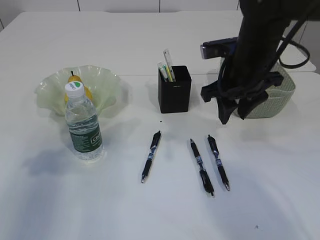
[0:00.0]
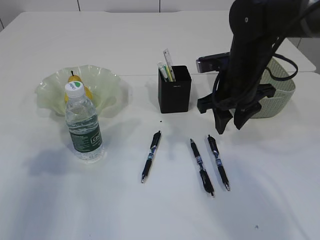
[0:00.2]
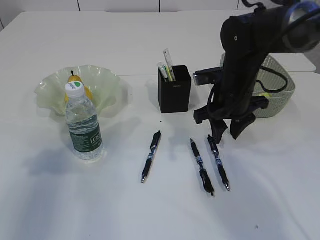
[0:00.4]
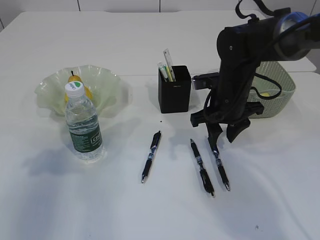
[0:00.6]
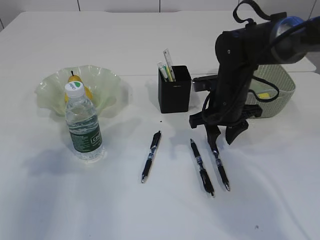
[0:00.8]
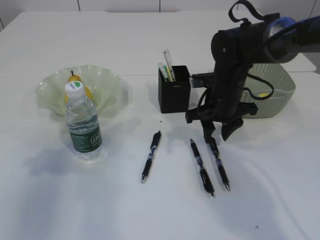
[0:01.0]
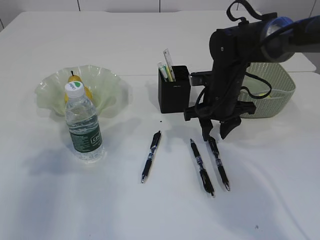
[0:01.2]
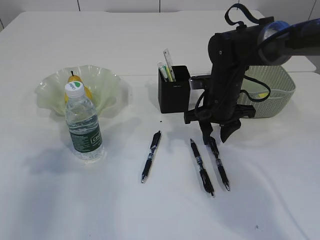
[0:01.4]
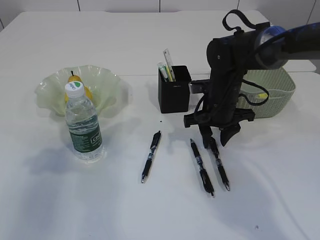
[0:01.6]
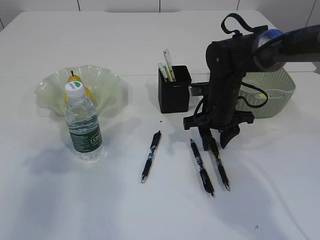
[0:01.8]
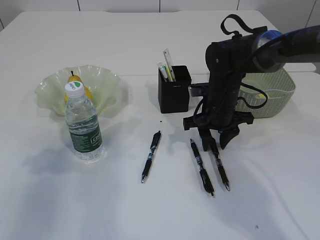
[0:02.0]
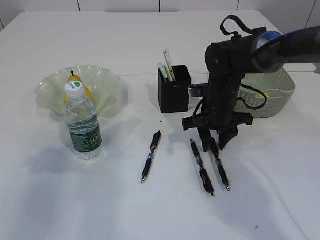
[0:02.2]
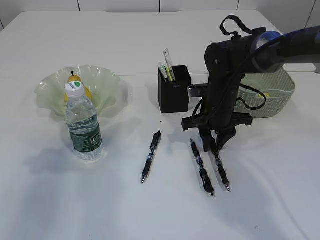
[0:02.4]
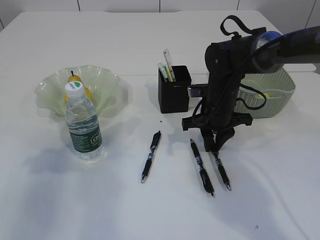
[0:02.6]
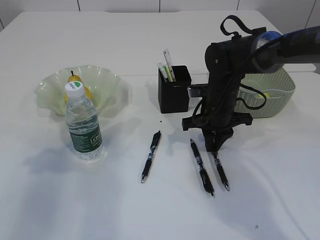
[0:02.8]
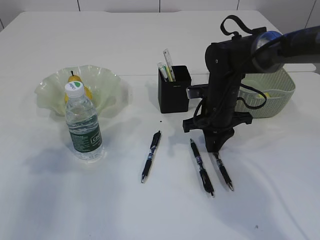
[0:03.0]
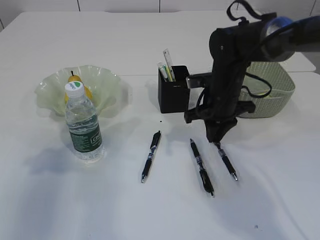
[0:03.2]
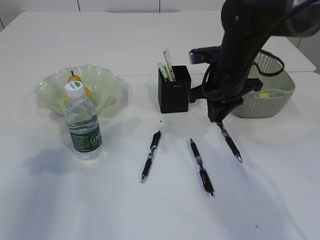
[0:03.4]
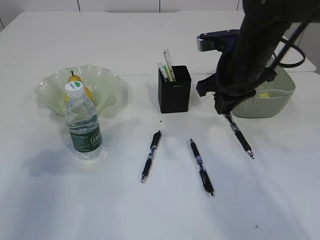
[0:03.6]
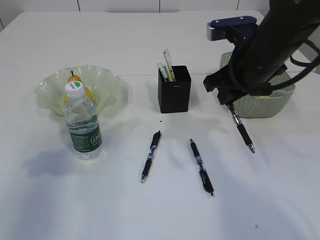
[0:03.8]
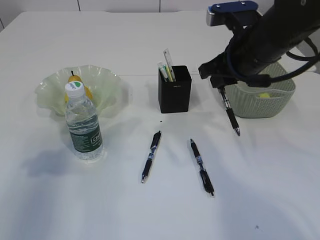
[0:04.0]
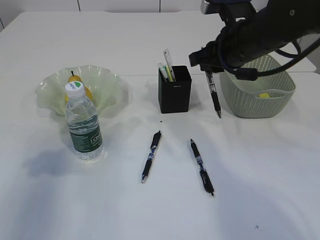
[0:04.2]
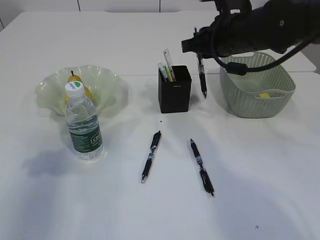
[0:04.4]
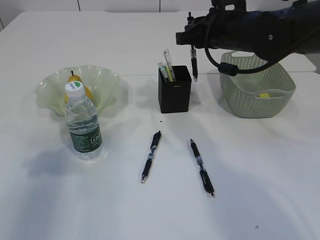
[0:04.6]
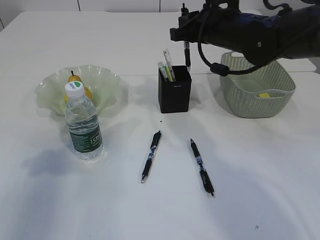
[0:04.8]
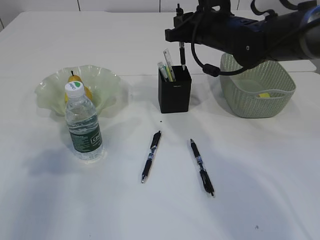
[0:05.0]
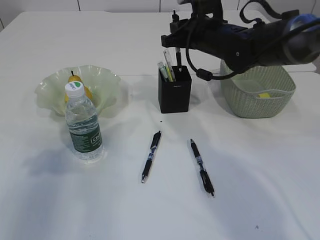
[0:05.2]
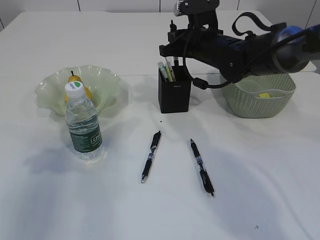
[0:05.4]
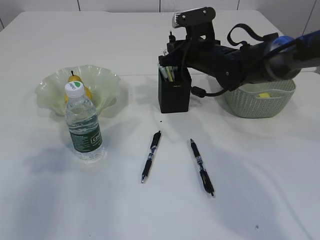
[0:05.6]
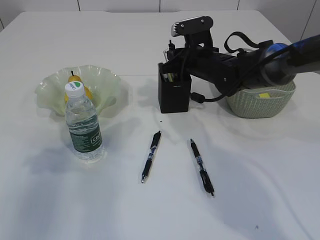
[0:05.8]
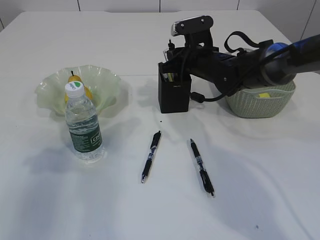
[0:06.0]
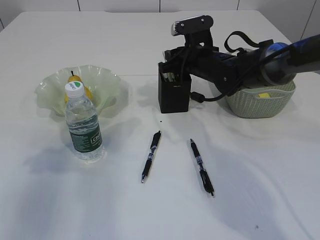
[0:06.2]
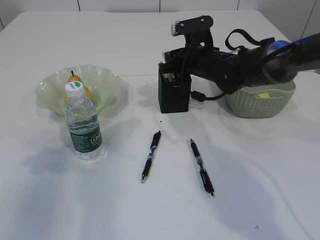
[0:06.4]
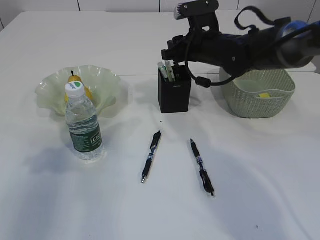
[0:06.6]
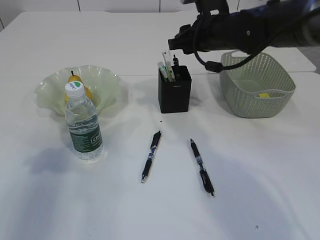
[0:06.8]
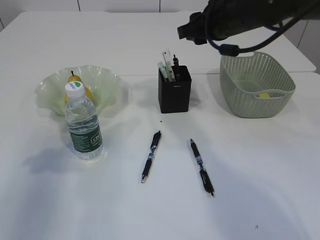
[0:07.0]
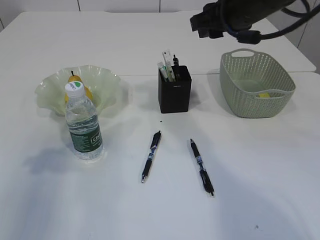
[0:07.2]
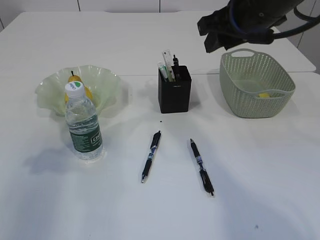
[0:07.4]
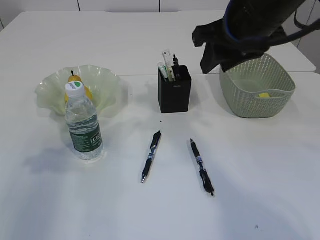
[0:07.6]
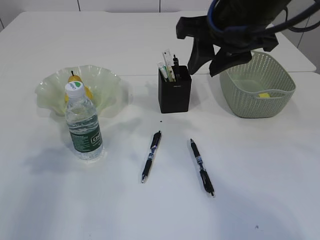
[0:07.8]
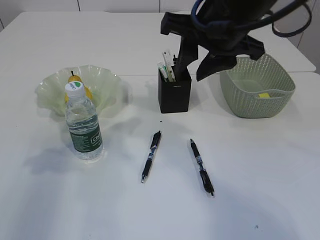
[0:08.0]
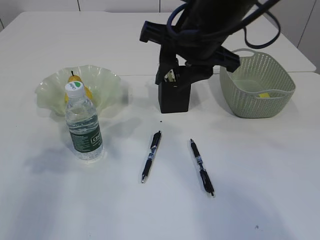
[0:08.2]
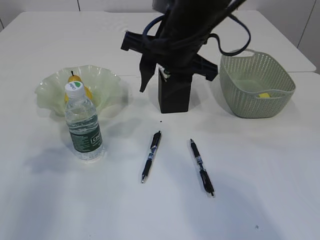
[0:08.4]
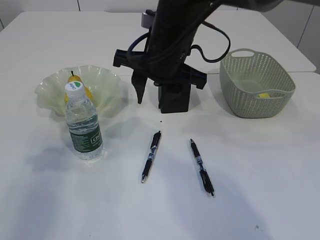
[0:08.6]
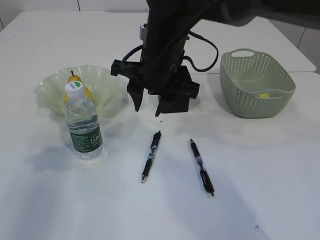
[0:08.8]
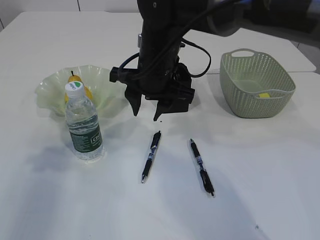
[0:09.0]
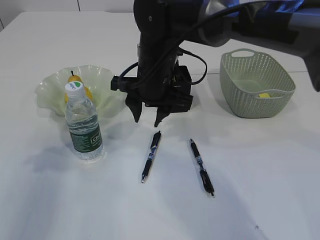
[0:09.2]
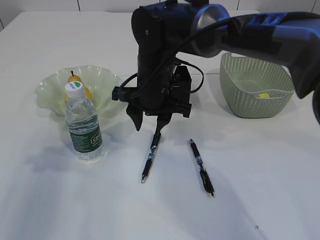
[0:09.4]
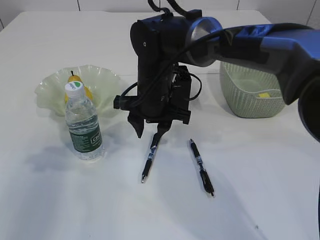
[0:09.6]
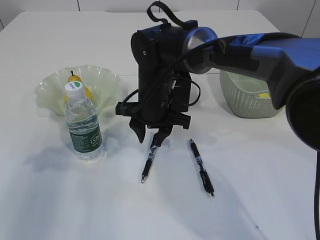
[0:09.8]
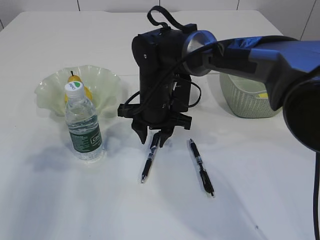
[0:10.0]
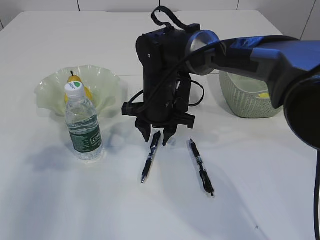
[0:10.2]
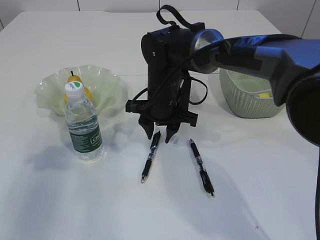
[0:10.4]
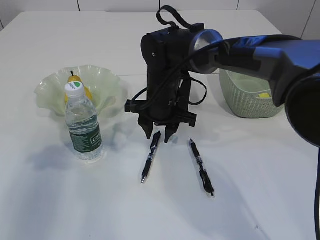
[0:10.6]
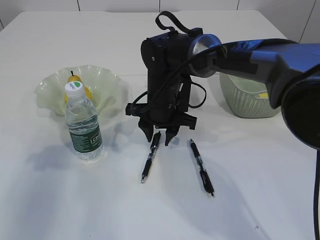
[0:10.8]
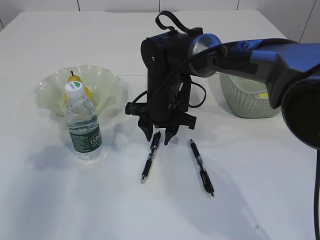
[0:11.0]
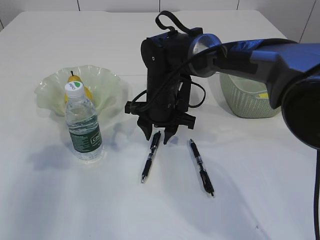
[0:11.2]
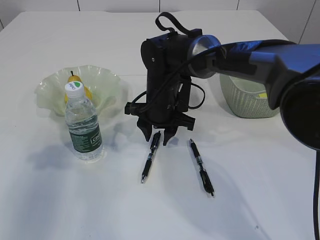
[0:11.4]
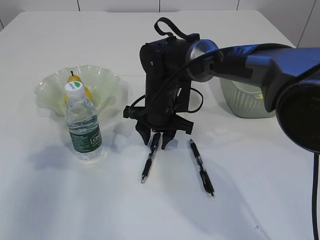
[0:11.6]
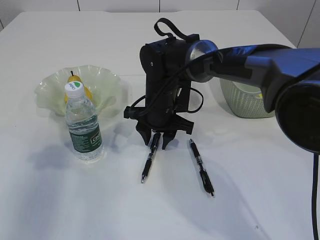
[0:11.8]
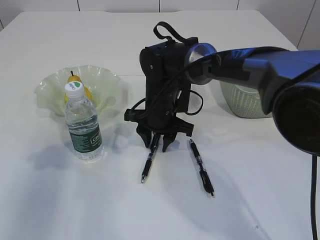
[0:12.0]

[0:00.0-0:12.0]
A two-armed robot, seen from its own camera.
Step, 0:00.0 to 0:03.2: Pick up the pen with right arm.
Step, 0:03.4 to 0:06.6: Place the pen into the pen holder.
0:00.0 to 0:01.6: The right gripper shifts some 10 cm downward.
0:01.6 to 0:03.0: The right gripper closes up.
0:03.0 to 0:04.4: The right gripper moves upward, roughly 15 cm.
0:04.4 to 0:06.0: The right gripper travels downward and forward by about 10 cm.
0:06.0 to 0:07.6: The right gripper shifts roughly 20 cm upward and backward.
0:07.6 to 0:09.0: The right gripper moves to the left and downward, roughly 15 cm.
0:09.0 to 0:10.4: The right gripper goes about 10 cm downward.
0:10.4 to 0:12.0: The grippers stay close to where they were, moving slightly.

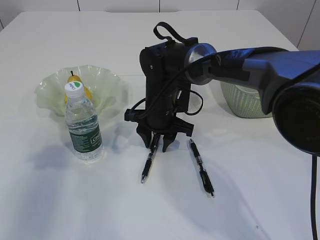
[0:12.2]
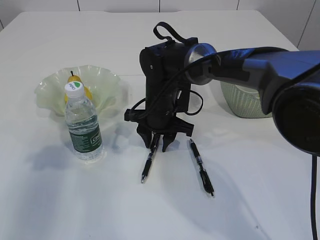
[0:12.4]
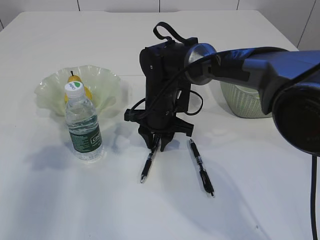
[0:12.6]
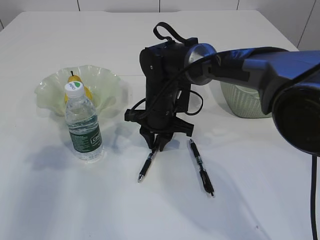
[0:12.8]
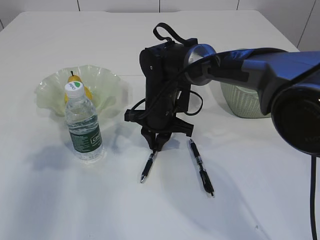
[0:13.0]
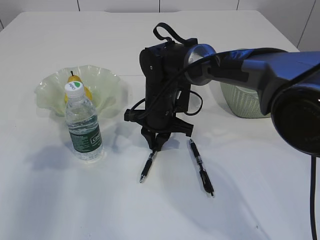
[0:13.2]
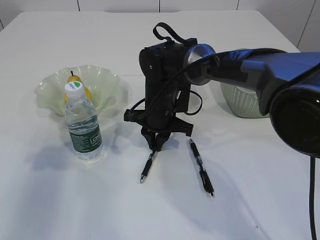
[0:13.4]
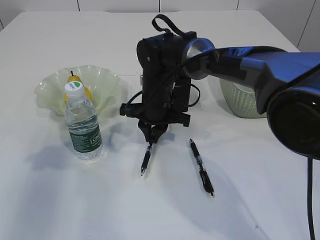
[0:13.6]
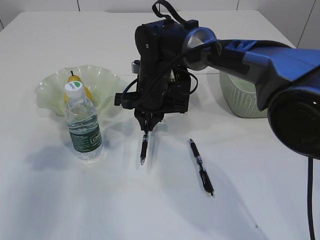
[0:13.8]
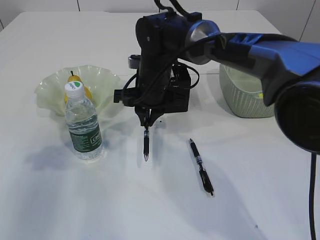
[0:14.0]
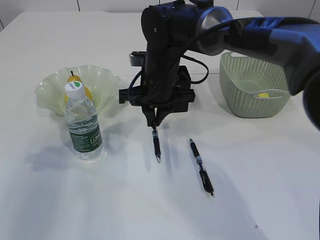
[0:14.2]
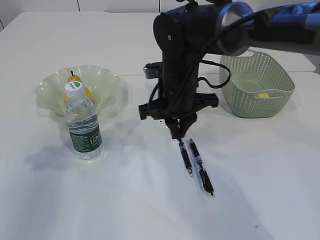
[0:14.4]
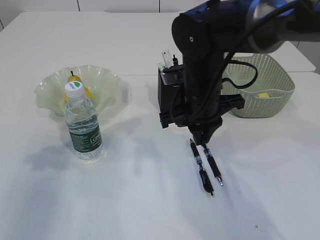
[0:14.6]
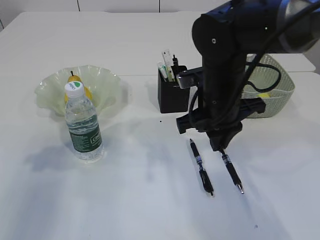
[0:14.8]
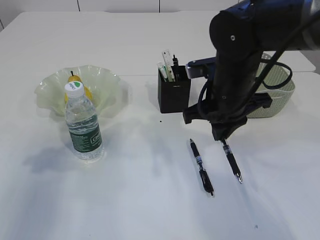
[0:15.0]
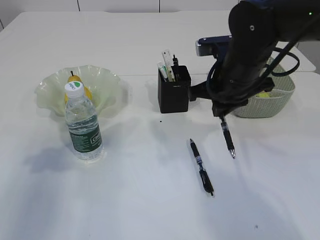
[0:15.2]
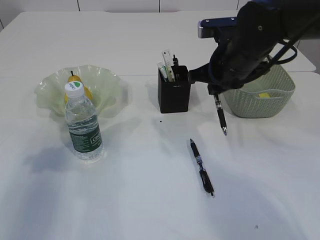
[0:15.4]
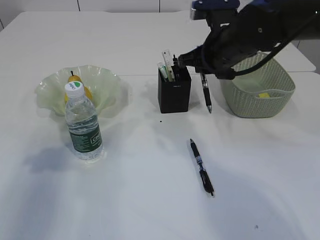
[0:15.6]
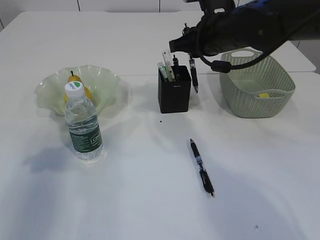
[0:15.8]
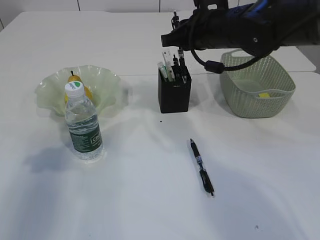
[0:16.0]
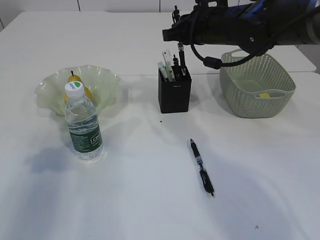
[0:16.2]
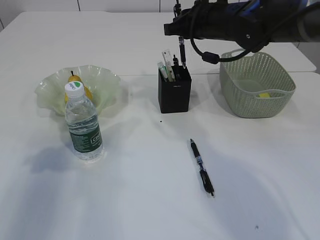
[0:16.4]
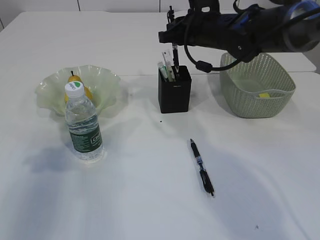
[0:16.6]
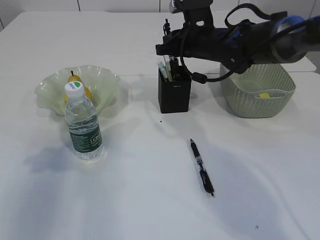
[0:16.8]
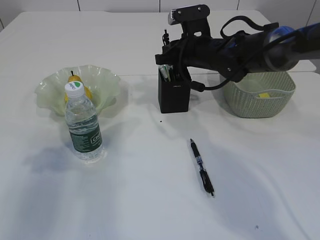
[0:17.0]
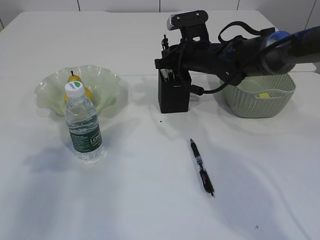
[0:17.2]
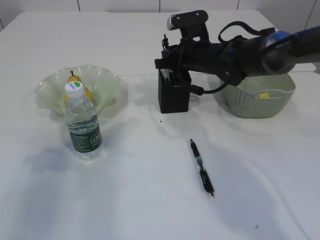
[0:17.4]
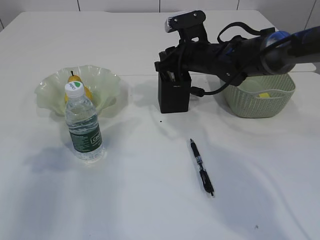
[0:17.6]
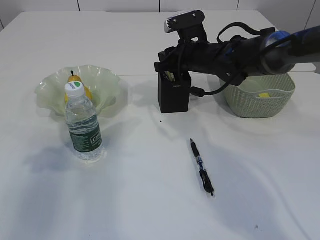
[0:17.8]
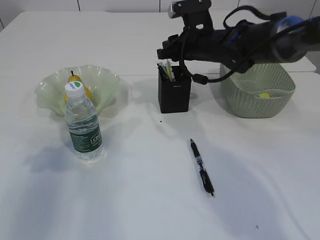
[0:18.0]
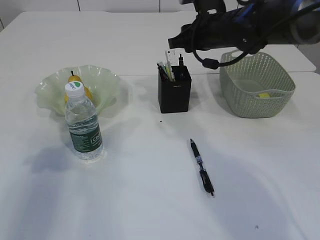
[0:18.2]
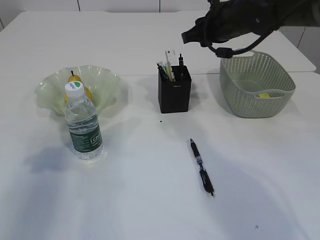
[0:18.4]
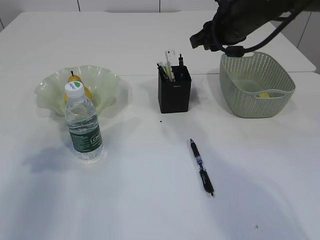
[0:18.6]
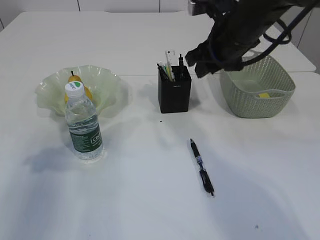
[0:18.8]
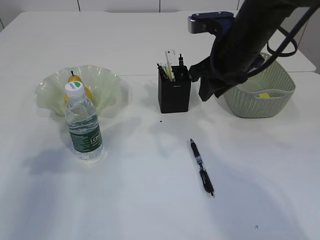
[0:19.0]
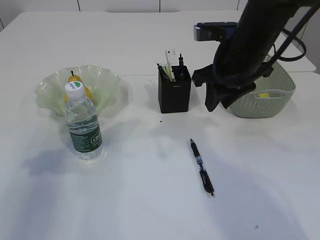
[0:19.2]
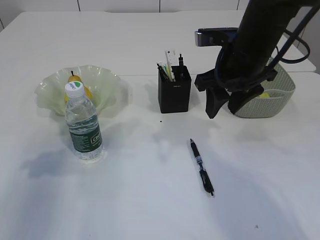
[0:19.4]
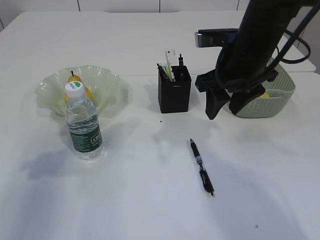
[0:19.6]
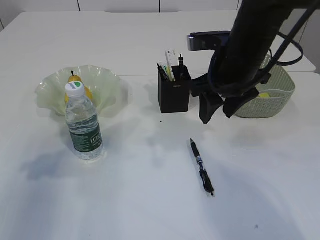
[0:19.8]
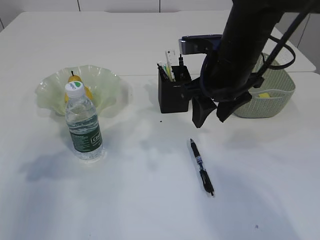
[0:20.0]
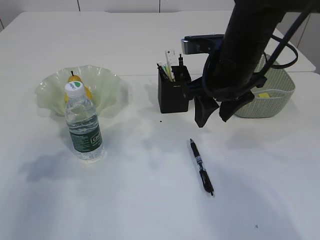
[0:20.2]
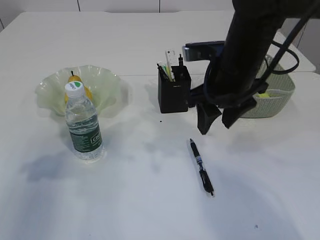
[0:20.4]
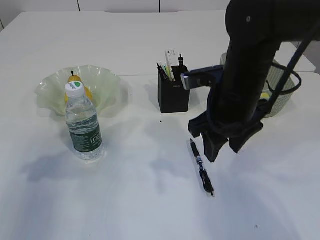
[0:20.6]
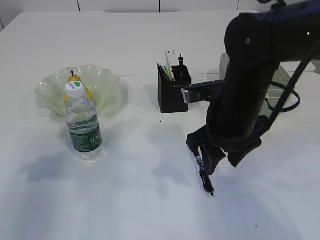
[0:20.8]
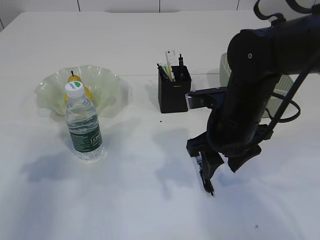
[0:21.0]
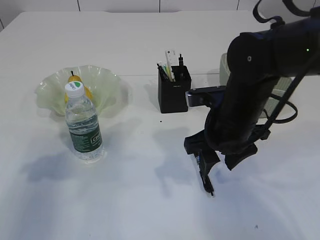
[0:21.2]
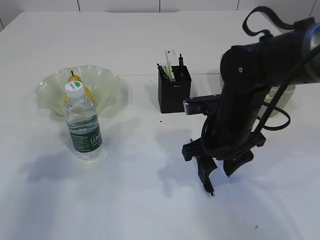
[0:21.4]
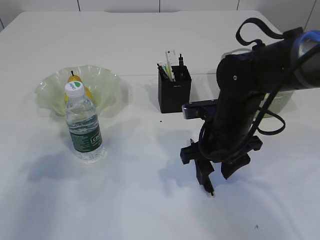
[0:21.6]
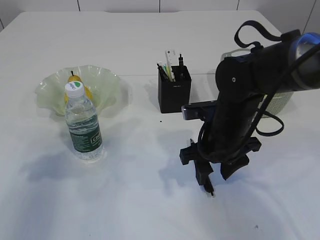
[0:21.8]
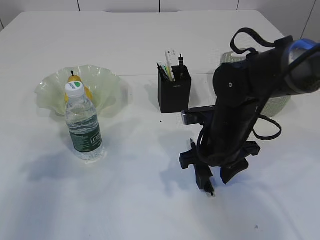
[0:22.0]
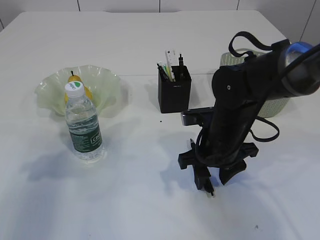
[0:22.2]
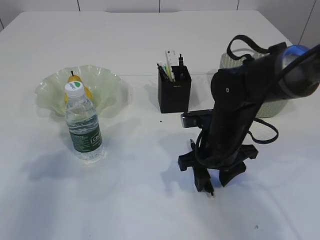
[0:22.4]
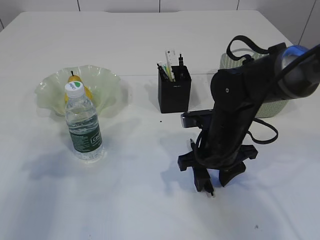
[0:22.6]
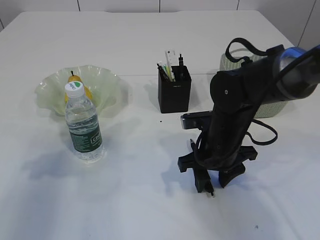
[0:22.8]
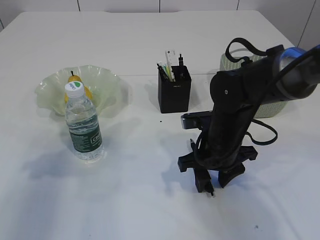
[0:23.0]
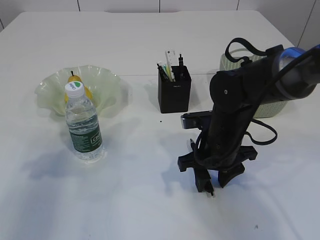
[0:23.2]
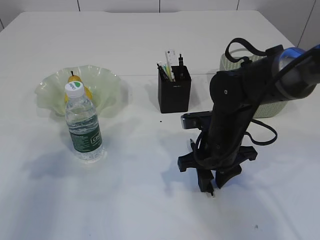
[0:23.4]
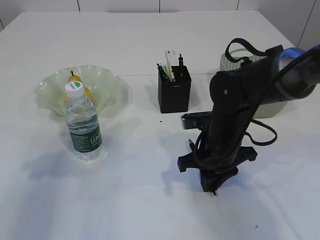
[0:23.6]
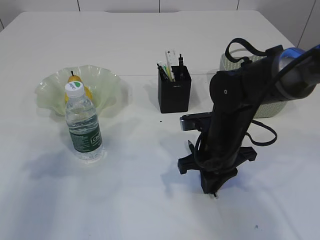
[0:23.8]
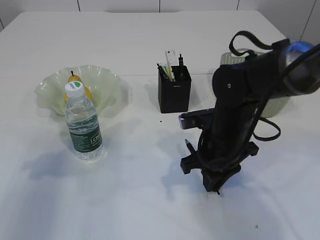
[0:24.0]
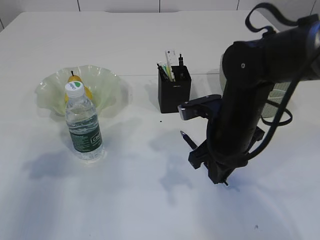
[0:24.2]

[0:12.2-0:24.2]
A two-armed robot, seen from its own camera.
Step, 0:14.0 to 0:17.8: Place the pen into the pen holder.
Step, 0:18.0 to 0:24.2: Pick up the pen with right arm.
0:12.2 to 0:13.8: The right gripper closes its fingers.
0:13.8 to 0:15.2: The right gripper goes some 15 cm to the right, backward and upward.
0:15.2 to 0:16.6: The right gripper shifts some 10 cm forward.
0:16.6 to 0:18.2: There are only small adjustments of the grippers.
0:18.2 to 0:19.8: The right gripper moves backward, about 10 cm.
0:19.8 to 0:21.2: The right gripper is displaced downward by roughly 5 cm.
0:21.2 to 0:22.6: The right gripper goes approximately 5 cm downward.
0:22.6 to 0:24.2: The right gripper closes.
